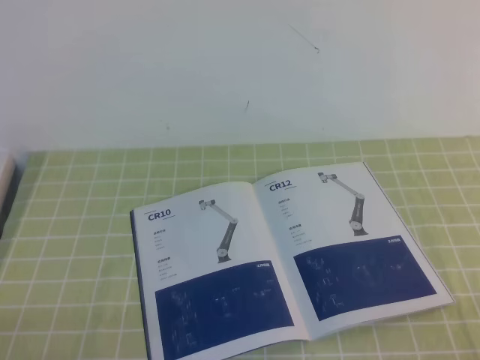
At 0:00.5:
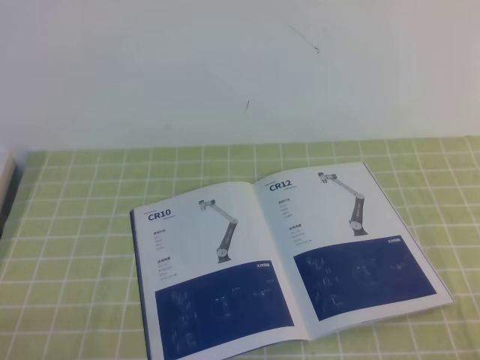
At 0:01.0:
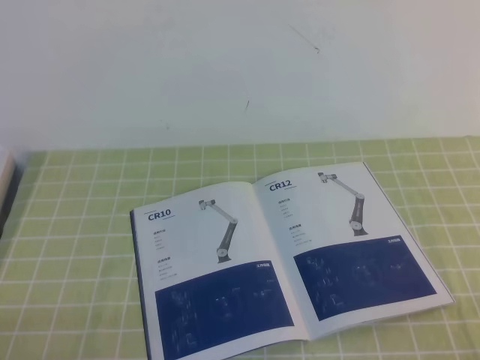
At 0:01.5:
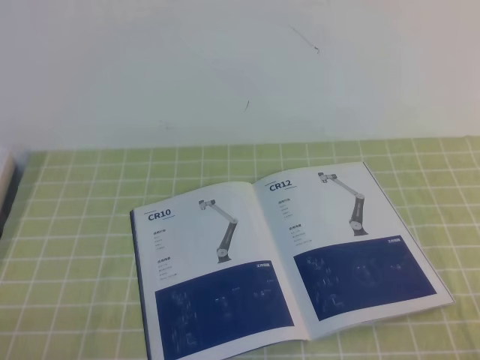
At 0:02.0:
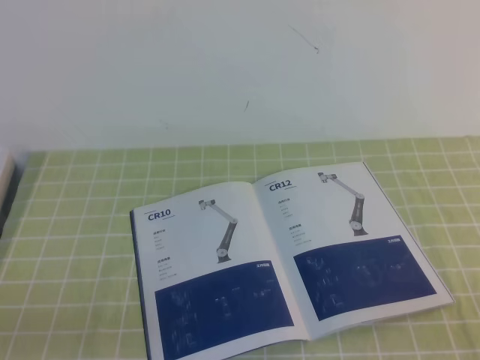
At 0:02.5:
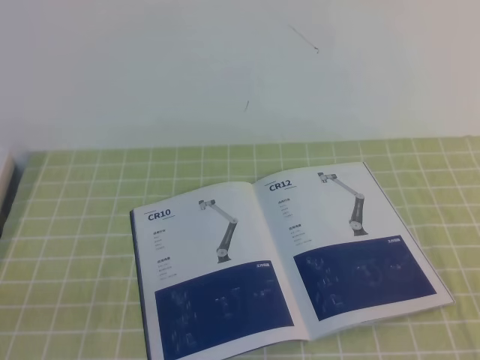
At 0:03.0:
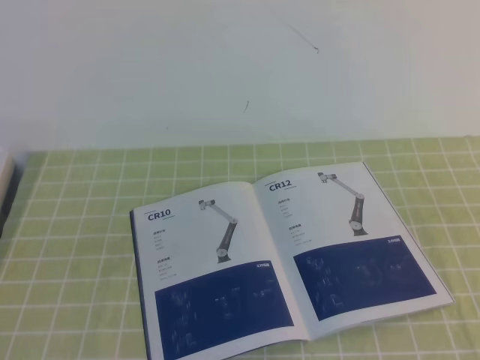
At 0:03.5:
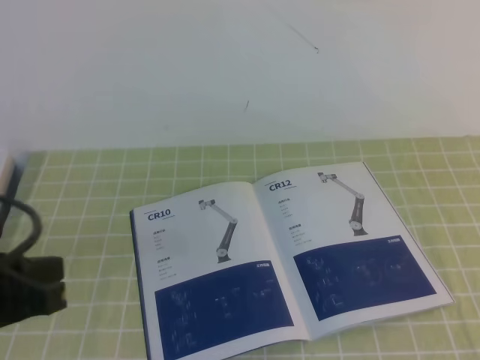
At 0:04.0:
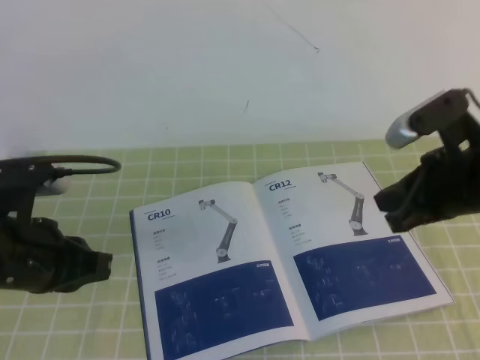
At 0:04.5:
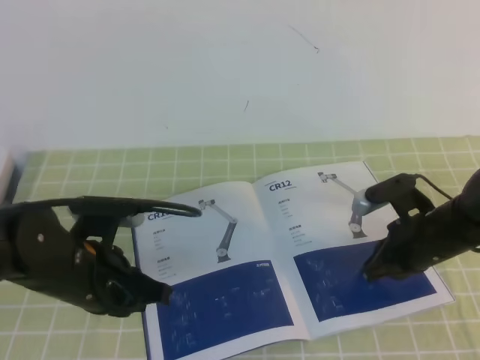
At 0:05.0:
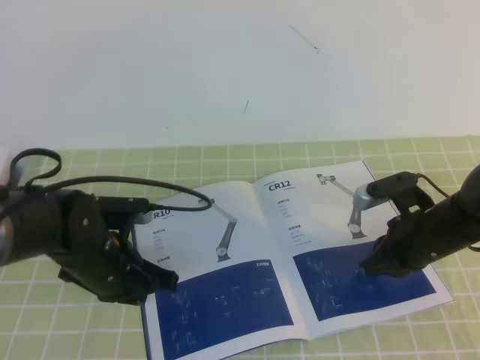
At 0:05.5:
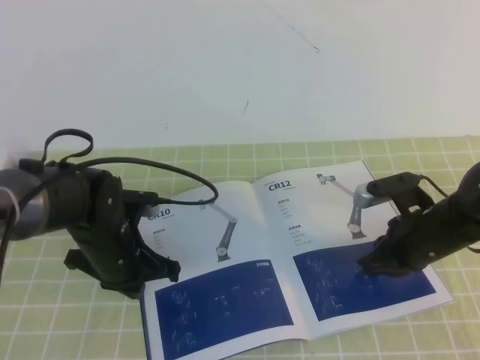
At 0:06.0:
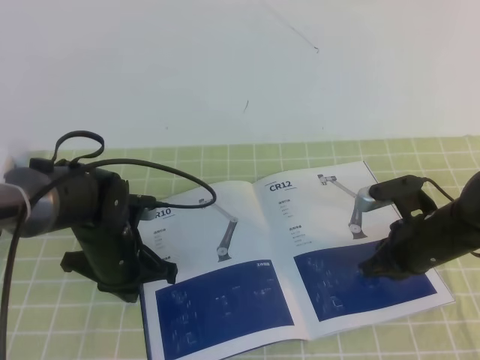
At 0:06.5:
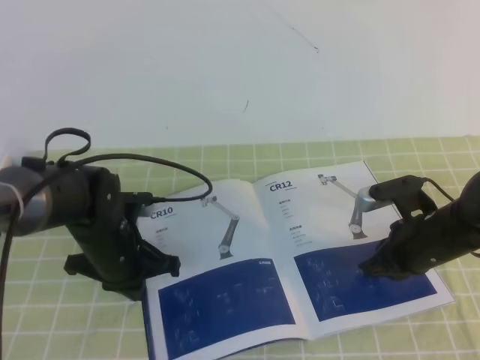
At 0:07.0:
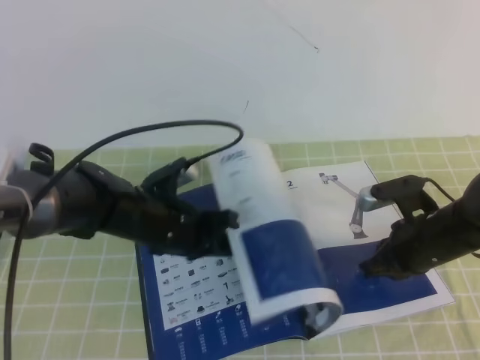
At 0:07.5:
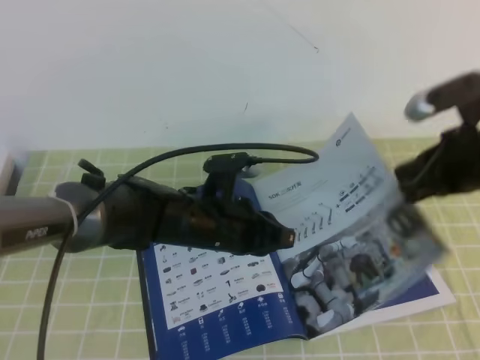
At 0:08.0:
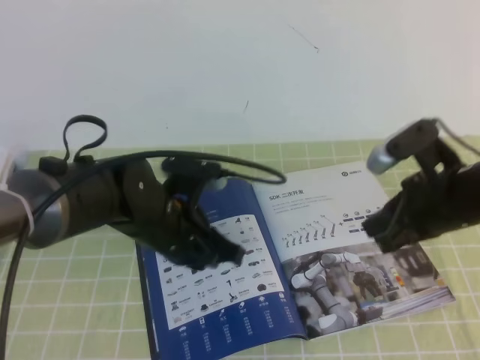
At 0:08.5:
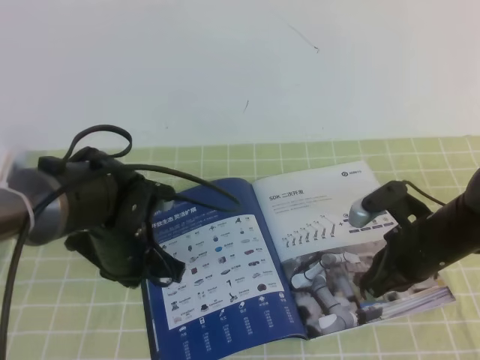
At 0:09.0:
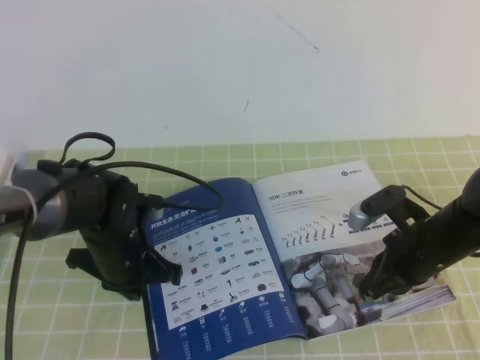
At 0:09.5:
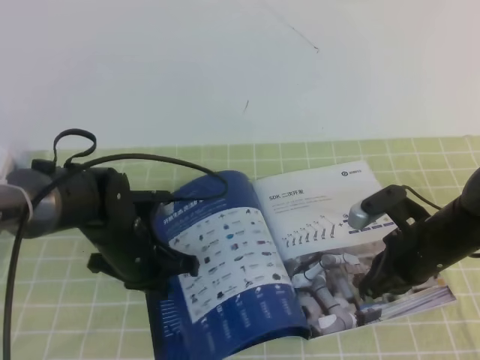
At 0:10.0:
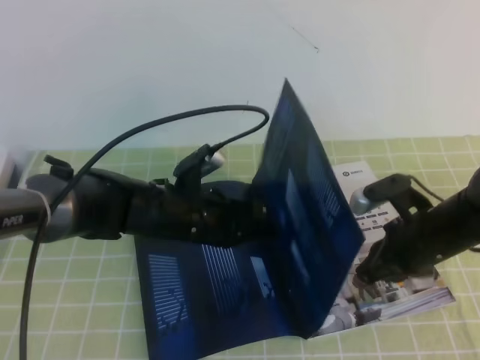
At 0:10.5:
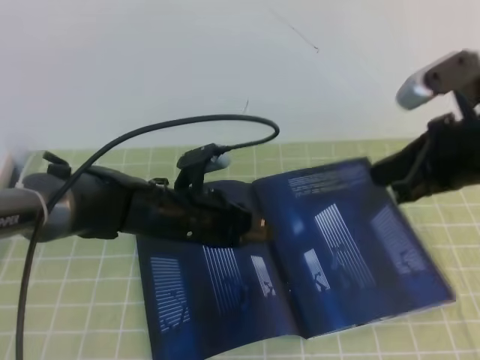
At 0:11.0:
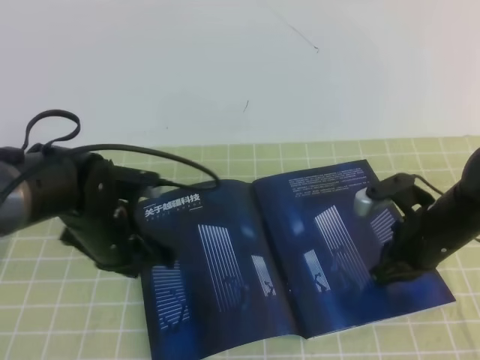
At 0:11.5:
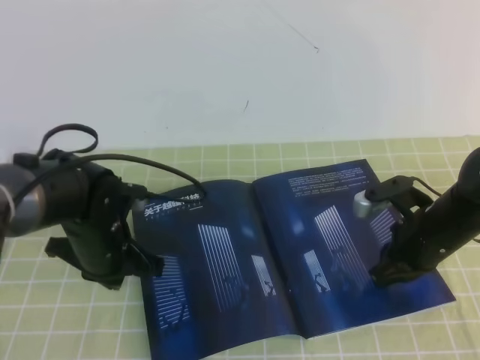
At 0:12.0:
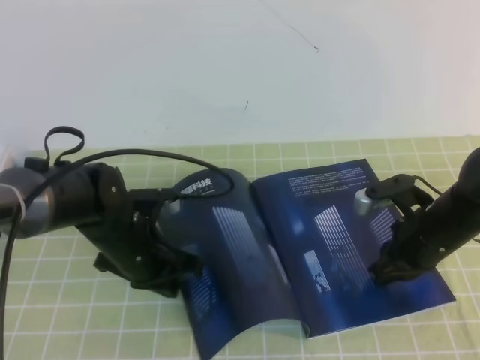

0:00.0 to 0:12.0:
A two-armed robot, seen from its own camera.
Task of the whole recording: on the green tablecloth, hold the book with one hand and close it with the other.
0:02.0 to 0:04.0: The right gripper heads forward and to the left, covering some 25 cm. Meanwhile the left gripper moves forward, roughly 15 cm.
0:04.0 to 0:06.0: The left gripper goes about 15 cm downward, forward and to the right, while the right gripper travels downward by about 15 cm.
0:06.0 to 0:08.0: The right gripper moves upward, roughly 10 cm. Meanwhile the left gripper heads to the right and upward, covering approximately 10 cm.
0:08.0 to 0:10.0: The right gripper moves downward, approximately 10 cm.
0:10.0 to 0:12.0: The left gripper moves to the left, some 5 cm, while the right gripper goes upward and returns, some 10 cm each way.

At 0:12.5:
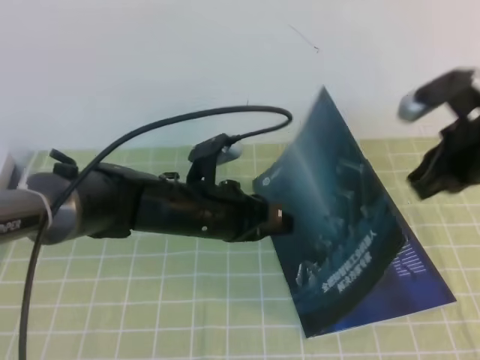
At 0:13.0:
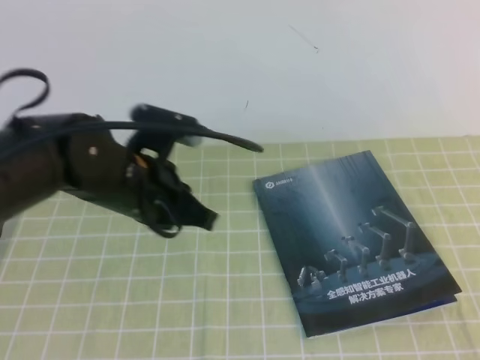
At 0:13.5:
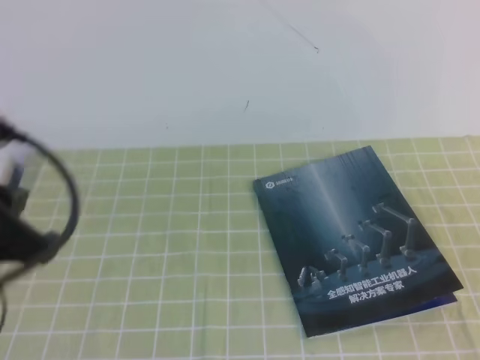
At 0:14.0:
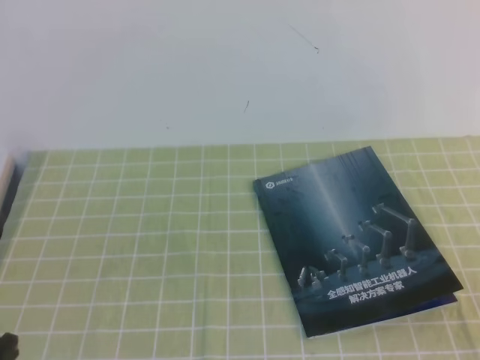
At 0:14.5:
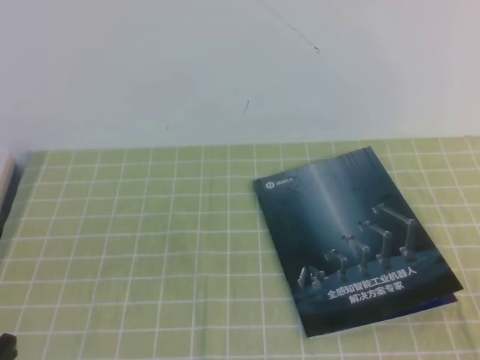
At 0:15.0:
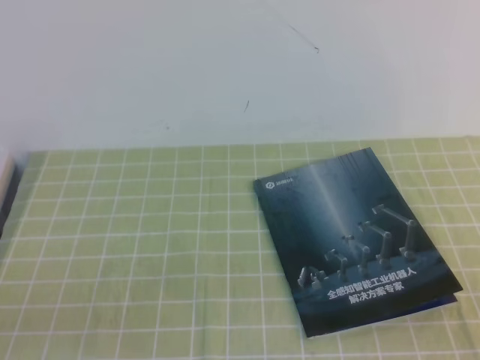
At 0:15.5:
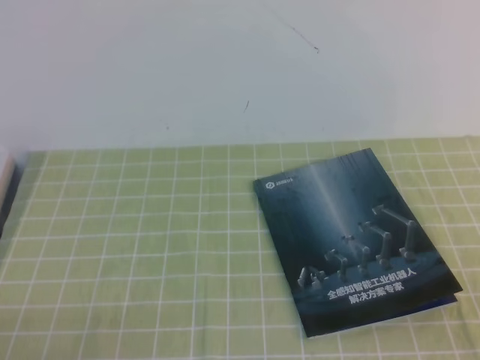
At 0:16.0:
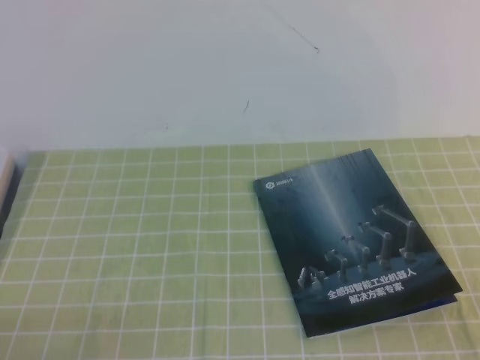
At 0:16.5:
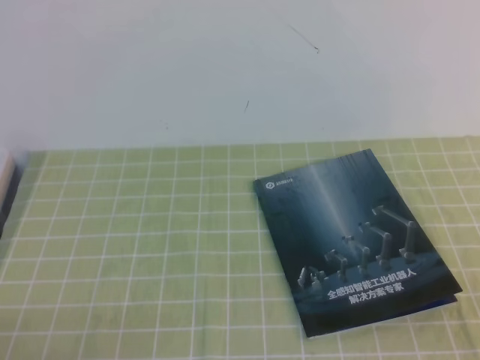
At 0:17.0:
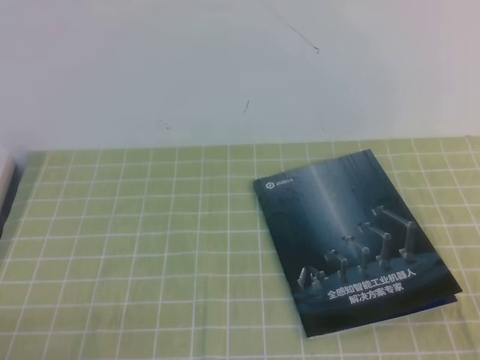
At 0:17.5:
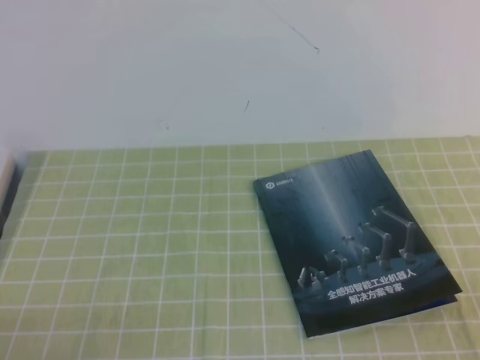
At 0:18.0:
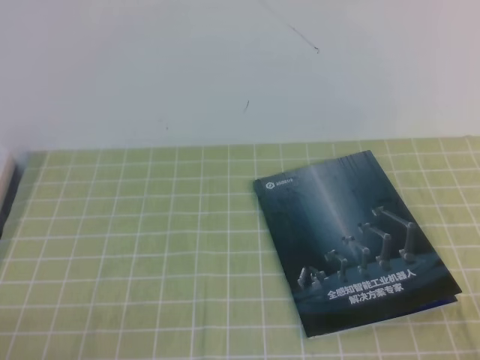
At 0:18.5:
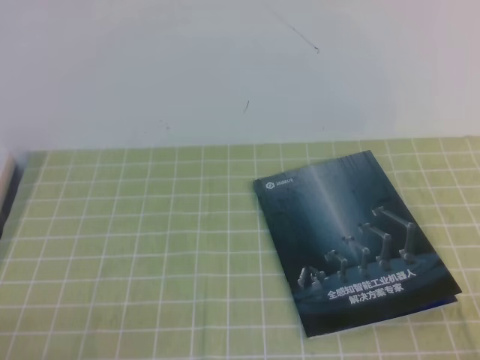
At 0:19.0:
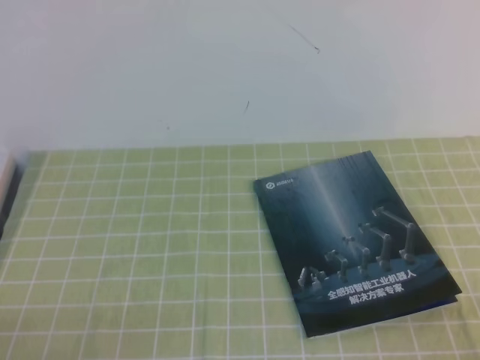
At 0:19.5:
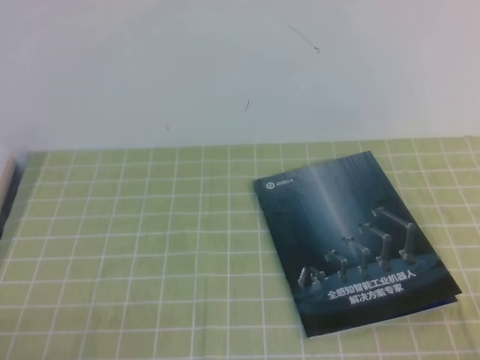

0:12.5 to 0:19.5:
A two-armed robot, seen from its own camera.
Task of the whole recording: on the green tablecloth, hold the book with one hand and close it with the other.
Step, 0:12.5 to 0:19.5: Close the open book.
0:12.5 to 0:14.5: The left gripper heads backward, to the left and upward, covering approximately 30 cm. Meanwhile the right gripper moves backward, approximately 25 cm.
